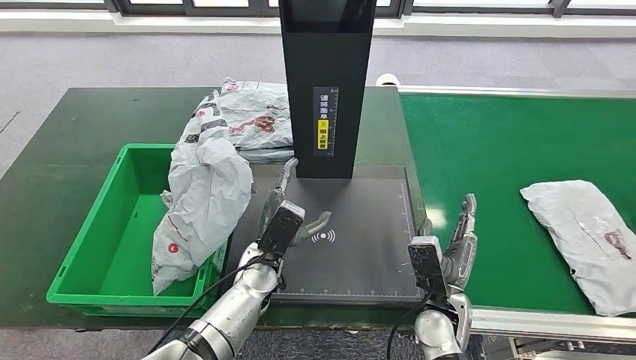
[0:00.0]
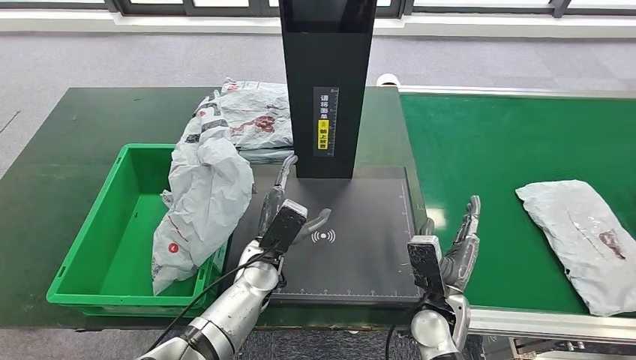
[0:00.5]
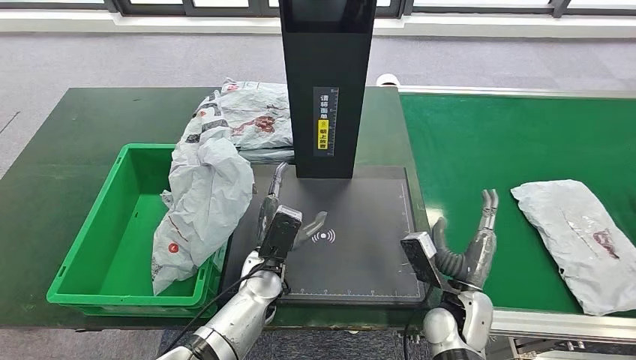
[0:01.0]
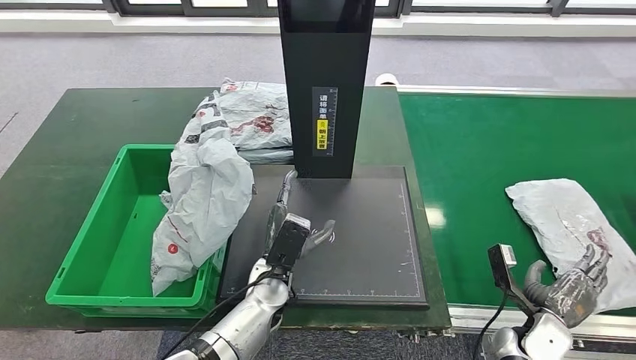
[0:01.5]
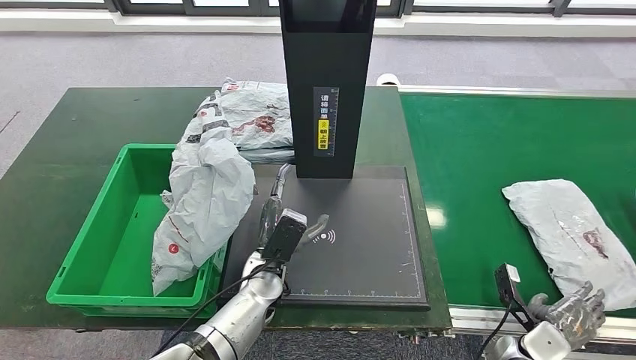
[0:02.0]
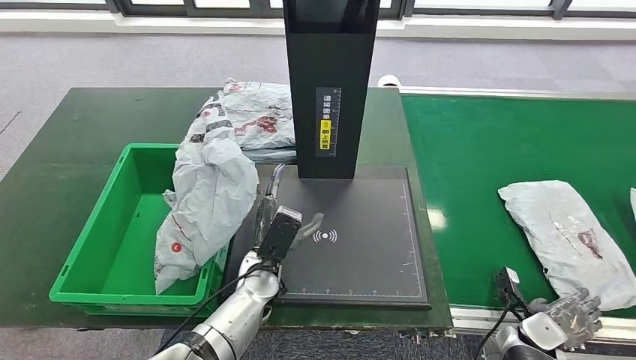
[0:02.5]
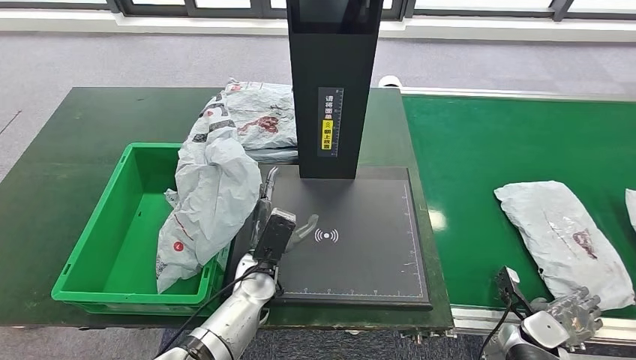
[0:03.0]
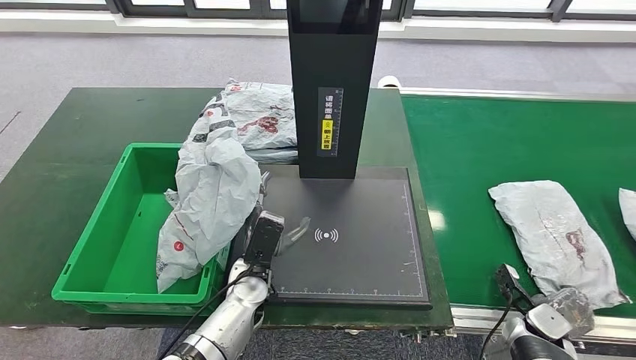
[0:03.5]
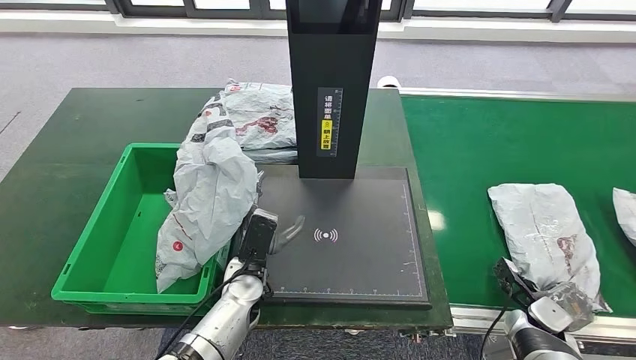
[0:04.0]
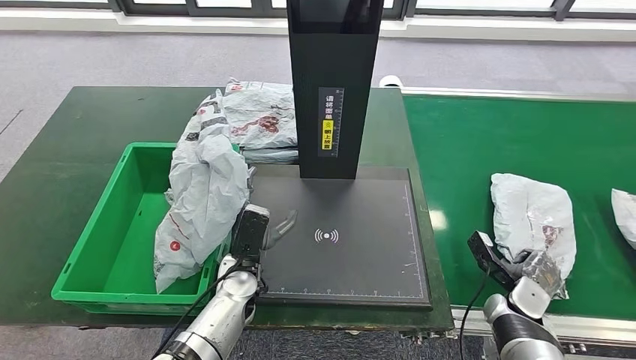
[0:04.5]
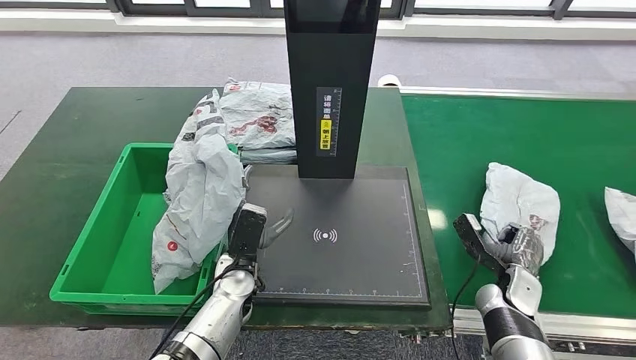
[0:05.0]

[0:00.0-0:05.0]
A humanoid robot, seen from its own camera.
Step, 0:00.0 to 0:05.0: Pick up the parcel from the conveyor belt.
0:00.0 to 0:02.5: The right hand goes about 20 cm to the right.
0:02.5 to 0:05.0: The right hand heads forward, covering roughly 5 cm.

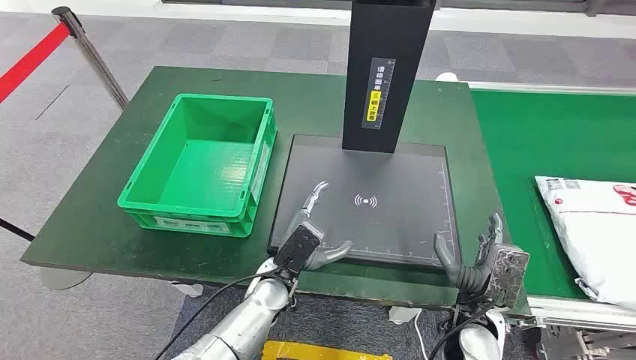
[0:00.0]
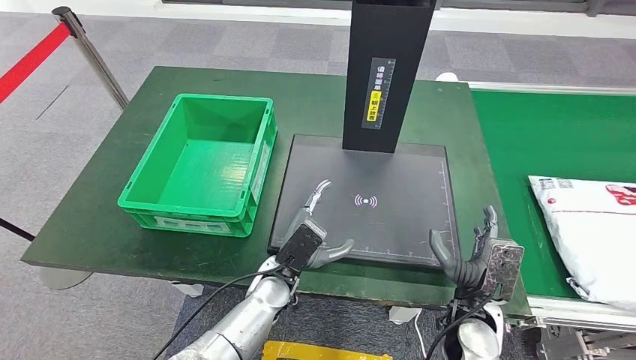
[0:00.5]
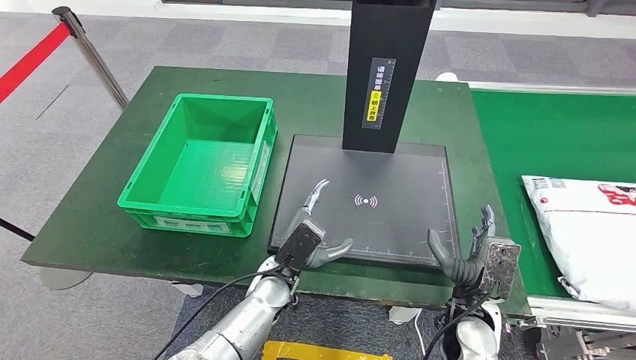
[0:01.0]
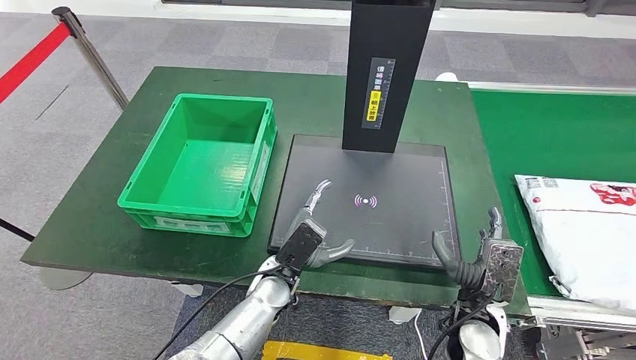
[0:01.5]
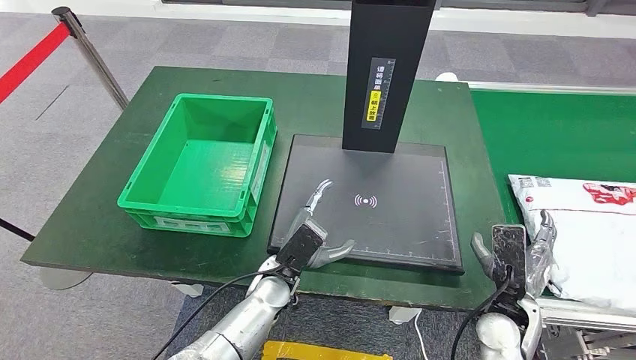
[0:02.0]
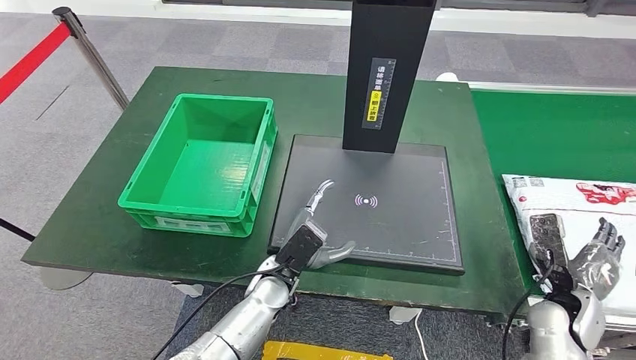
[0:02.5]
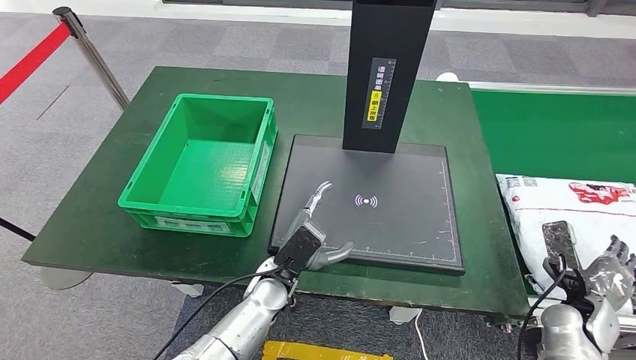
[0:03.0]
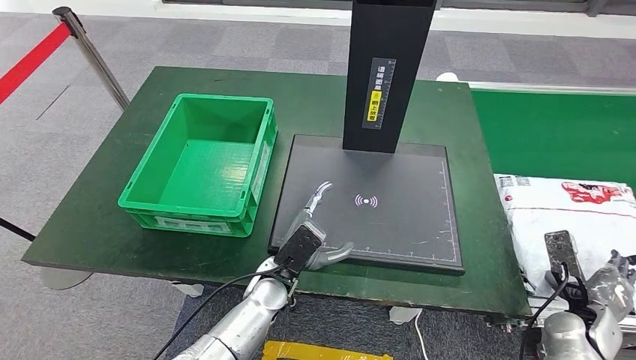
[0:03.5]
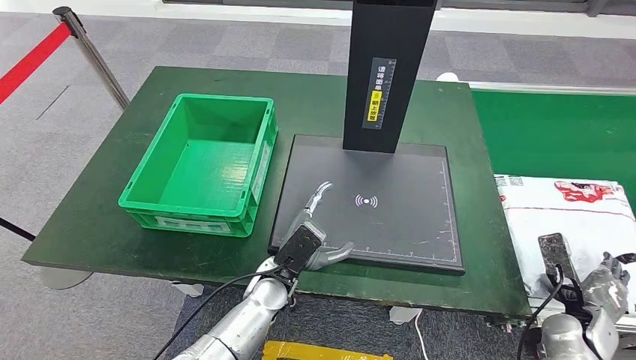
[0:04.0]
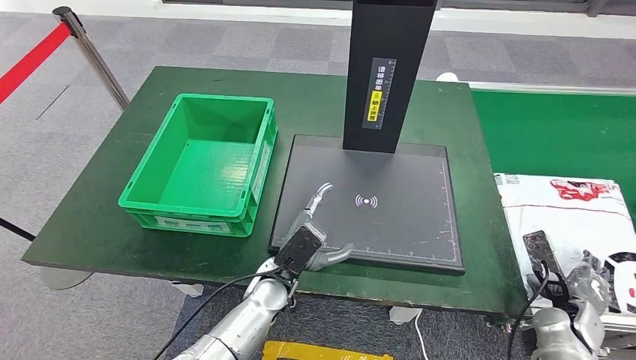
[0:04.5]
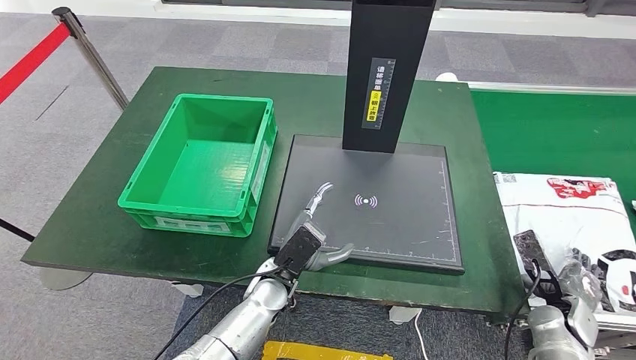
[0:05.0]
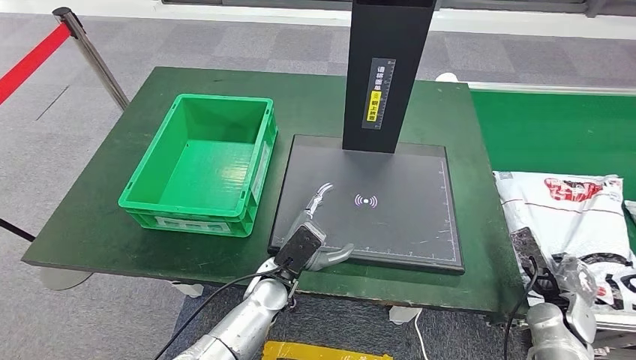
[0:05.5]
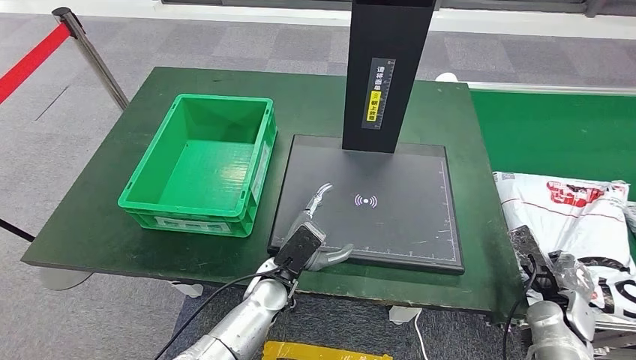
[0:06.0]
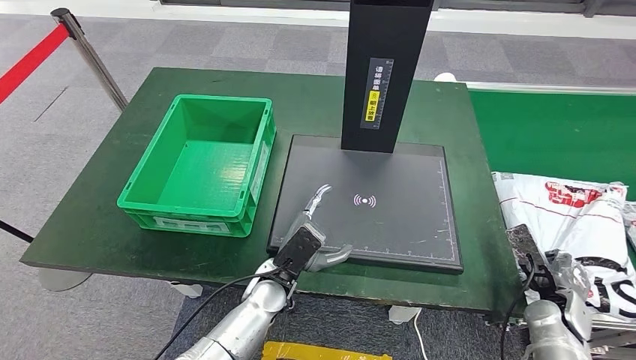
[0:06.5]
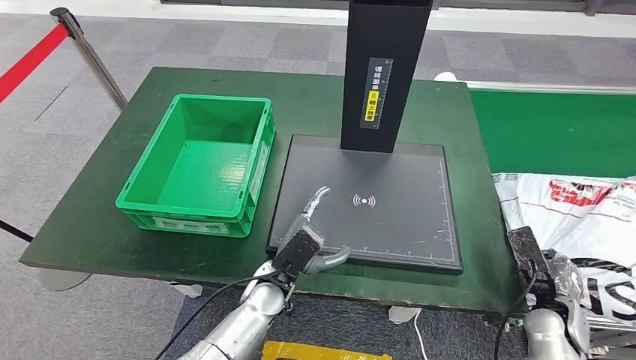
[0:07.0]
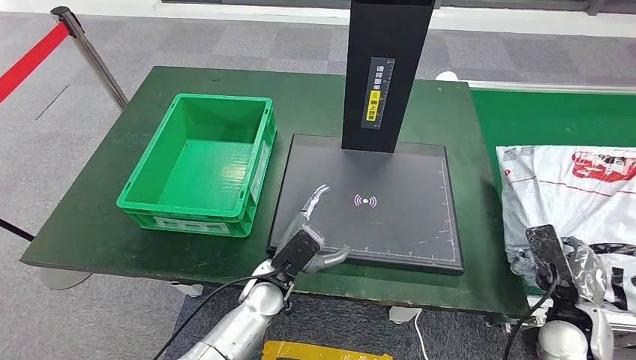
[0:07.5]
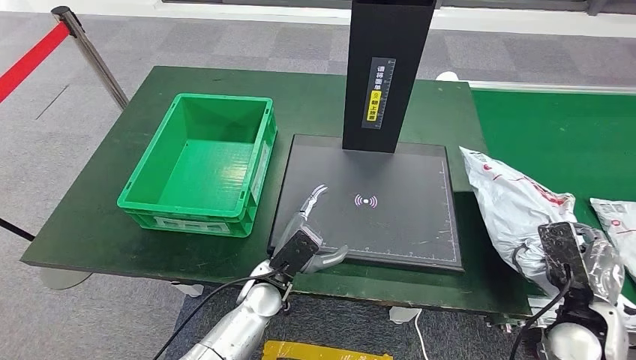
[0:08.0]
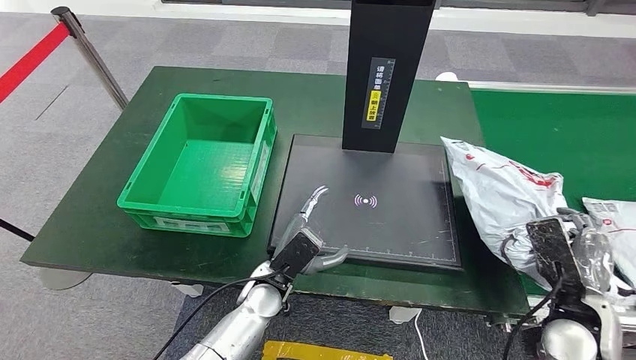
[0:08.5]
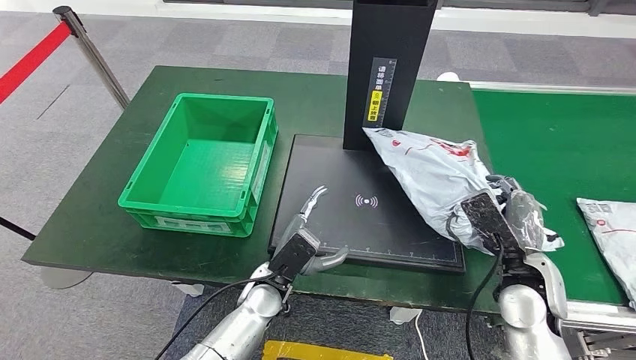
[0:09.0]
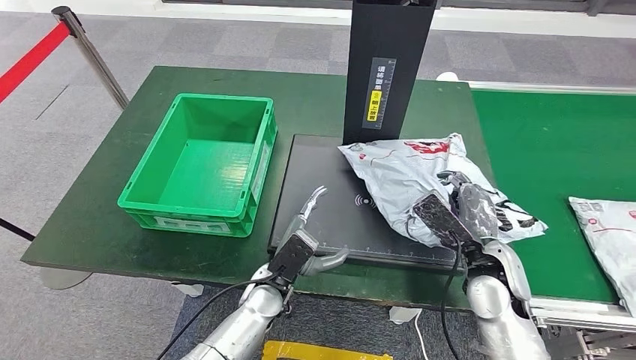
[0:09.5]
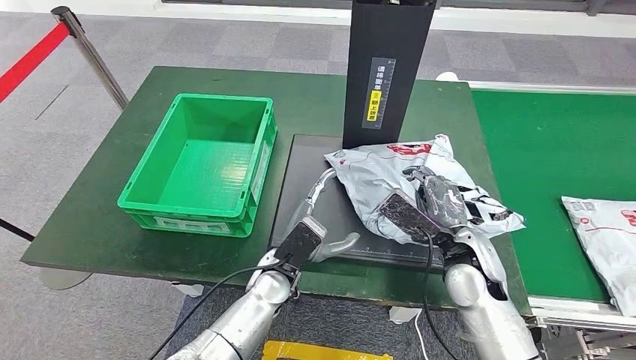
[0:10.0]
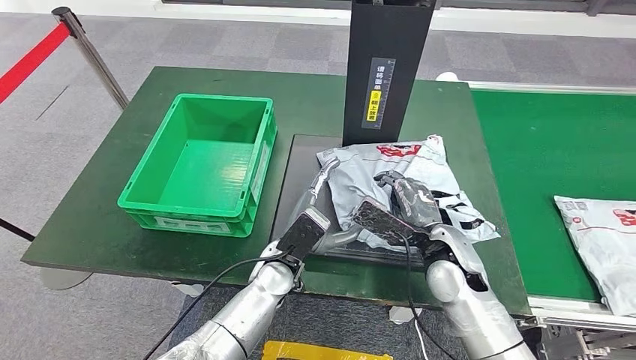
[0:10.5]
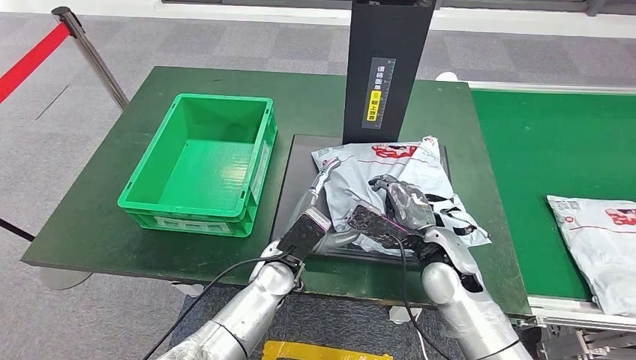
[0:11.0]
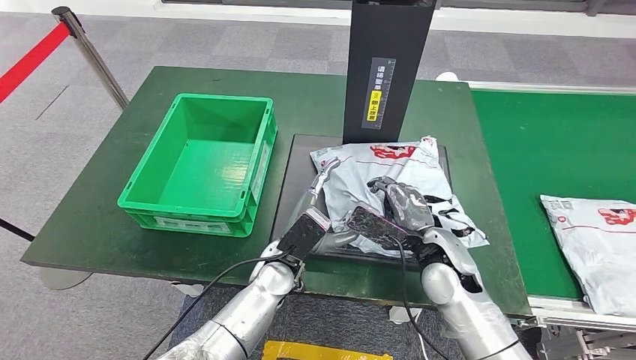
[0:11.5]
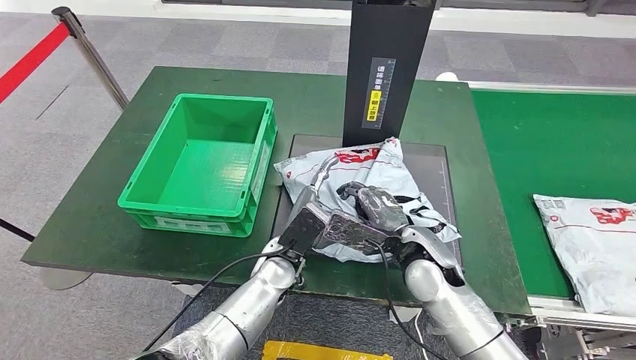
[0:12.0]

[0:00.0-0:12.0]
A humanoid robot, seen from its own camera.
Step, 0:00.0 to 0:07.5: Take the parcel off the conveyor belt.
0:02.0 to 0:04.0: The right hand goes approximately 15 cm to the right.
0:04.0 to 0:06.0: The hands make only small movements.
0:06.0 to 0:08.0: The right hand goes about 10 cm upward.
0:10.0 to 0:12.0: The right hand shifts some 5 cm to the left.

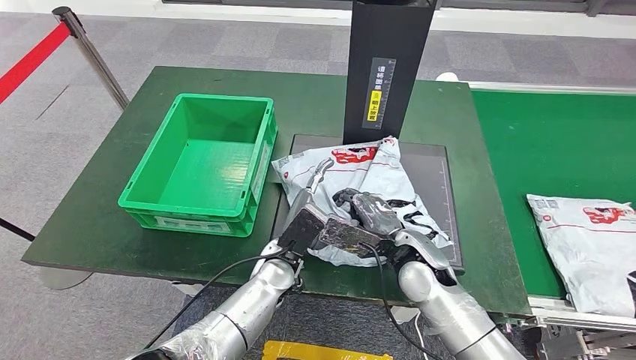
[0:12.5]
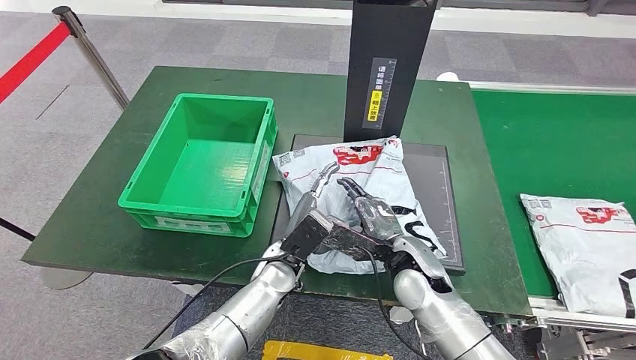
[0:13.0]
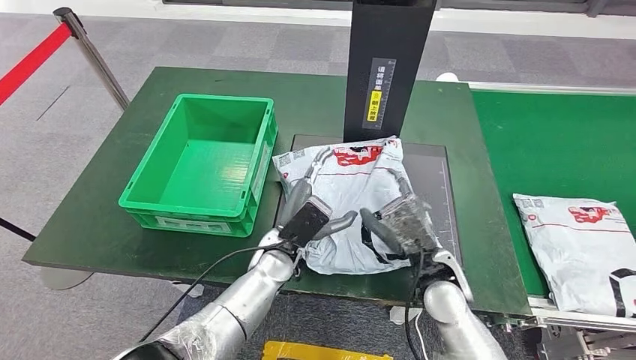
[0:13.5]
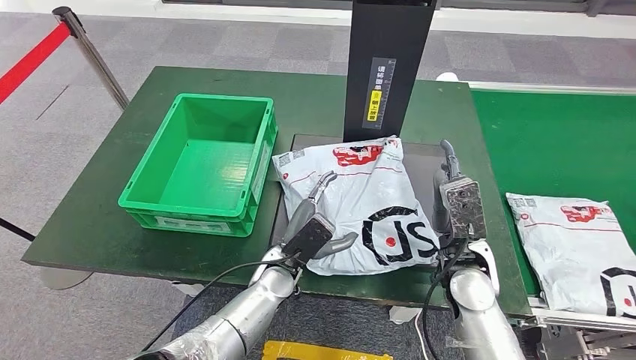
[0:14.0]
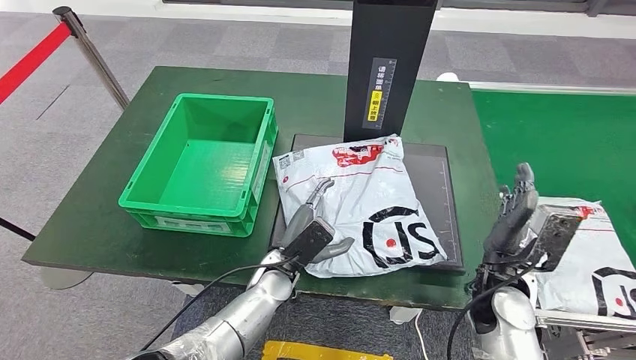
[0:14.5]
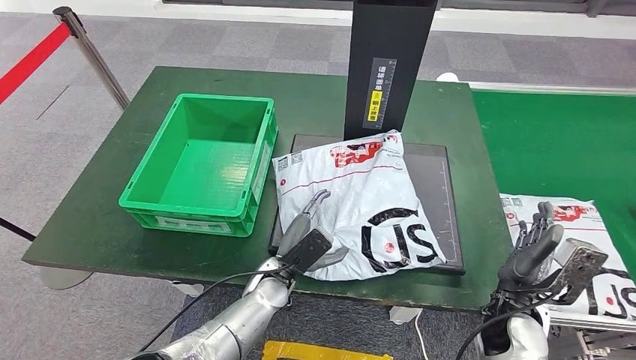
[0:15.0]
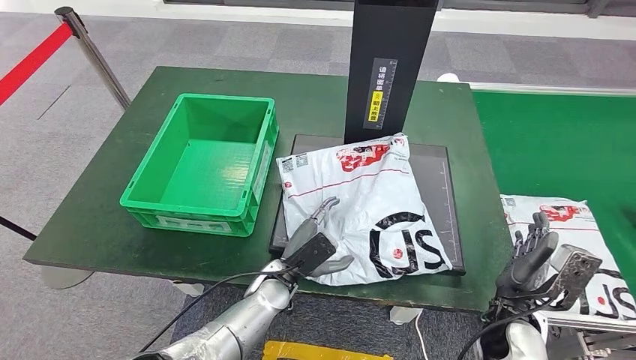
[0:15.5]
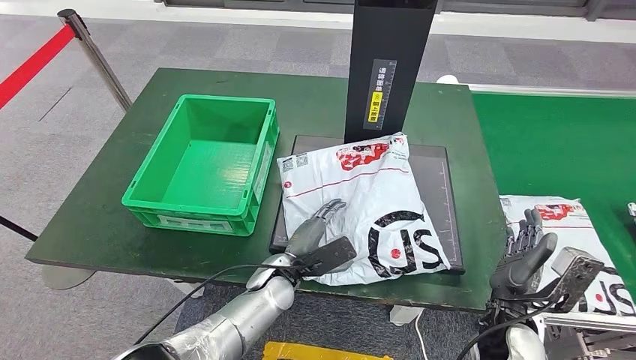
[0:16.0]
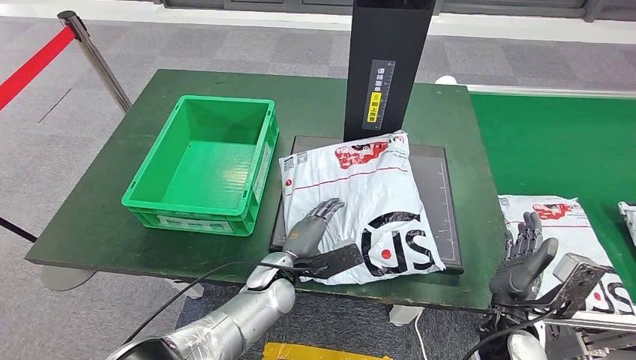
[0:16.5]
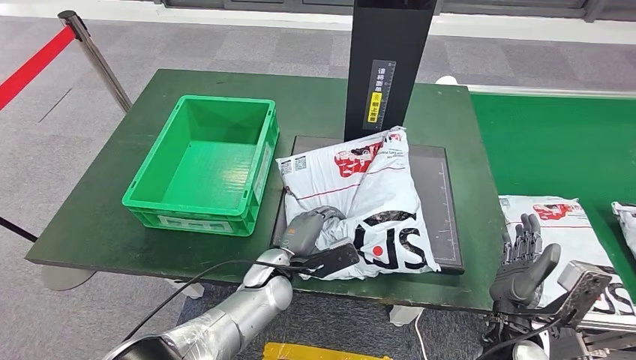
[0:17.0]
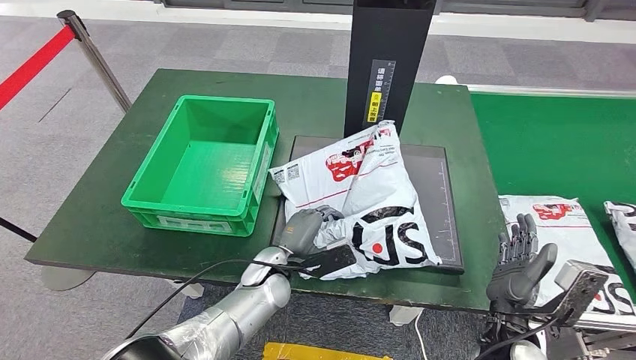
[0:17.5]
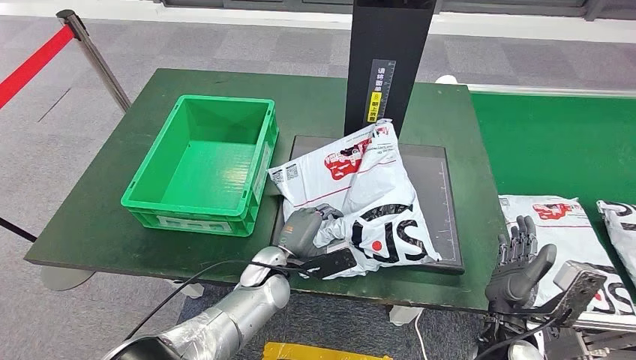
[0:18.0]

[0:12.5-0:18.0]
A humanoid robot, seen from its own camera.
0:12.5 to 0:14.5: The right hand goes roughly 10 cm to the right.
0:16.0 to 0:18.0: The hands make only small movements.
